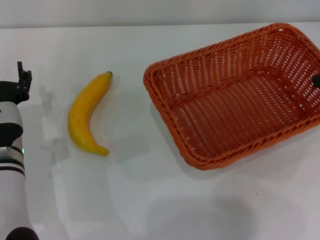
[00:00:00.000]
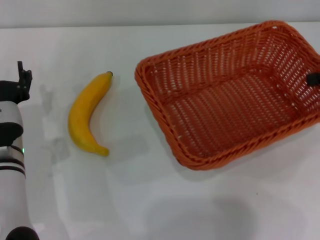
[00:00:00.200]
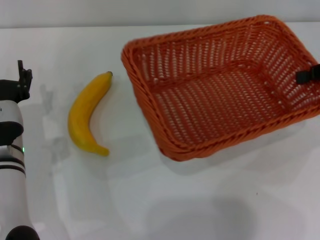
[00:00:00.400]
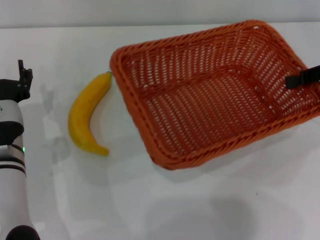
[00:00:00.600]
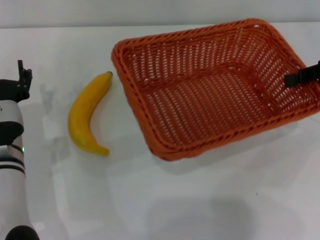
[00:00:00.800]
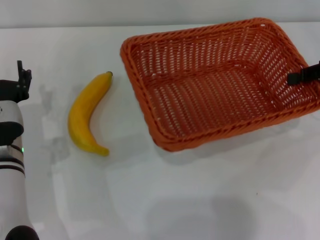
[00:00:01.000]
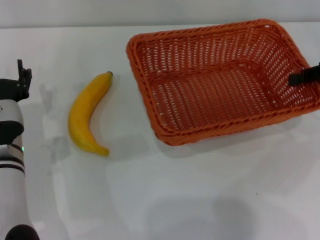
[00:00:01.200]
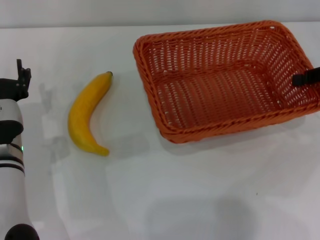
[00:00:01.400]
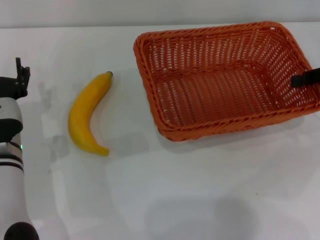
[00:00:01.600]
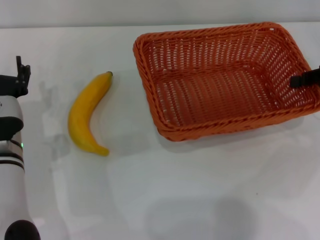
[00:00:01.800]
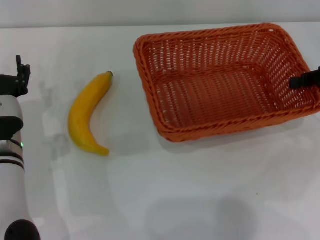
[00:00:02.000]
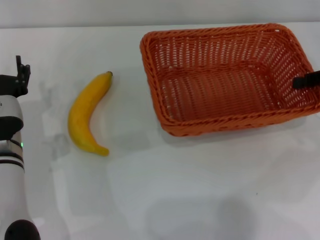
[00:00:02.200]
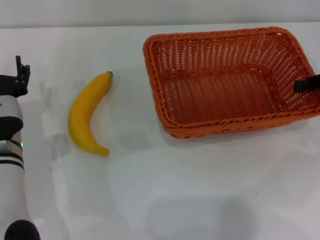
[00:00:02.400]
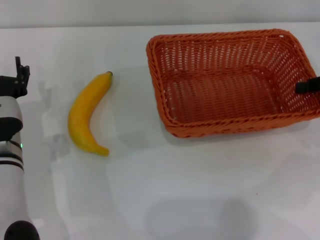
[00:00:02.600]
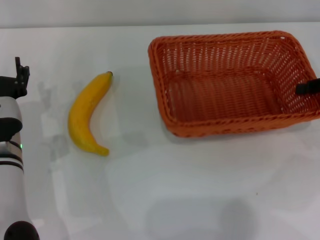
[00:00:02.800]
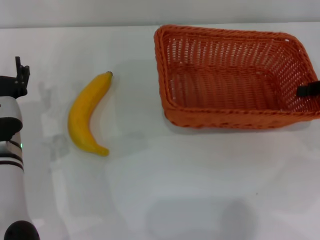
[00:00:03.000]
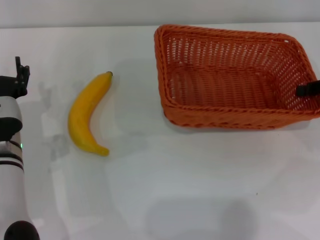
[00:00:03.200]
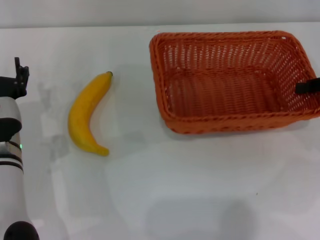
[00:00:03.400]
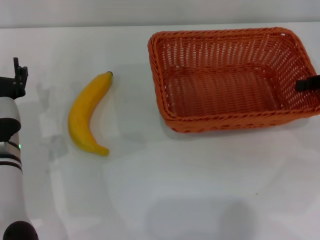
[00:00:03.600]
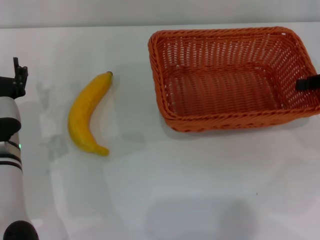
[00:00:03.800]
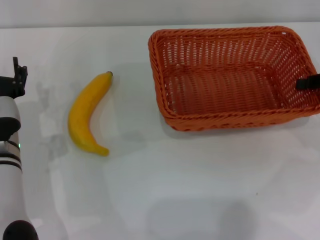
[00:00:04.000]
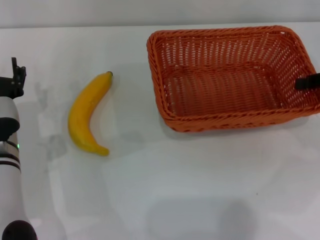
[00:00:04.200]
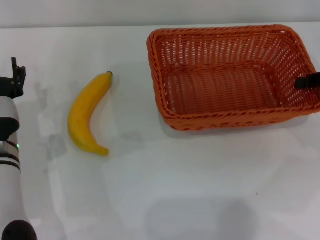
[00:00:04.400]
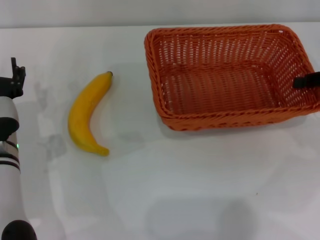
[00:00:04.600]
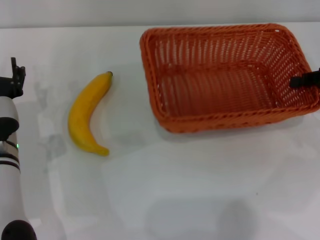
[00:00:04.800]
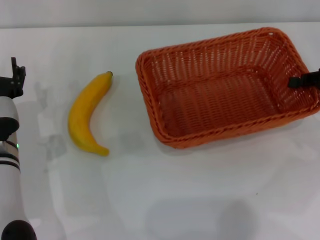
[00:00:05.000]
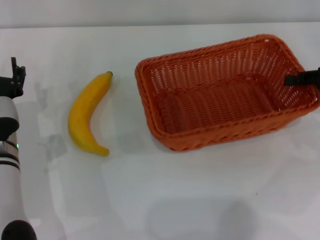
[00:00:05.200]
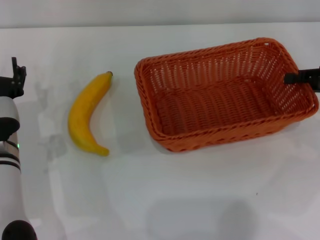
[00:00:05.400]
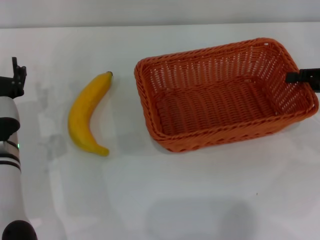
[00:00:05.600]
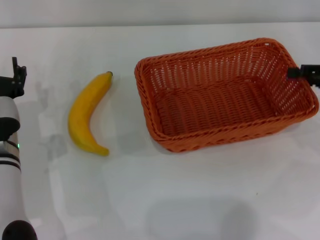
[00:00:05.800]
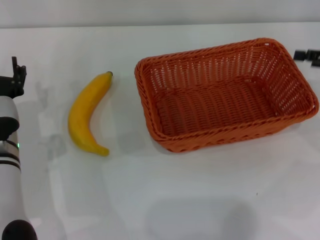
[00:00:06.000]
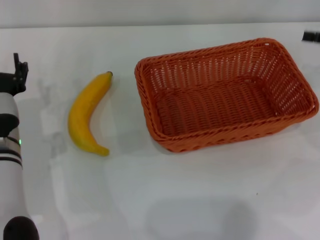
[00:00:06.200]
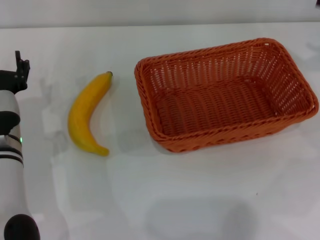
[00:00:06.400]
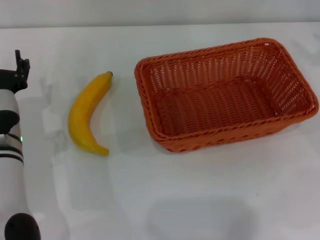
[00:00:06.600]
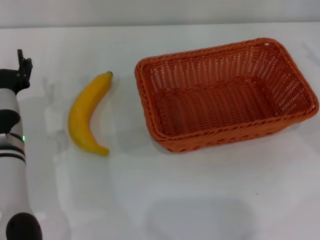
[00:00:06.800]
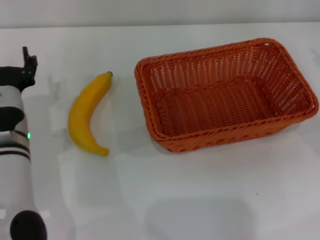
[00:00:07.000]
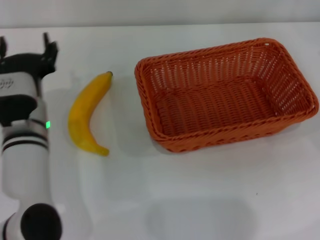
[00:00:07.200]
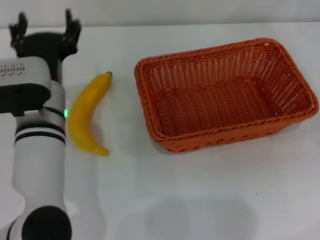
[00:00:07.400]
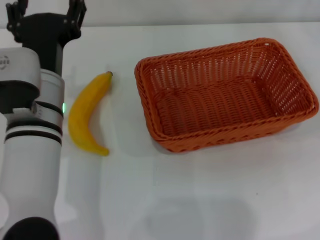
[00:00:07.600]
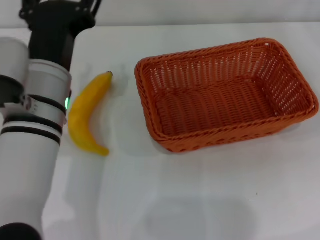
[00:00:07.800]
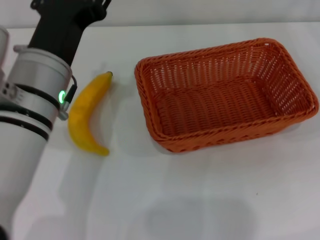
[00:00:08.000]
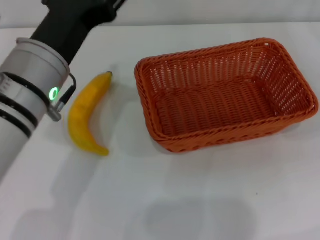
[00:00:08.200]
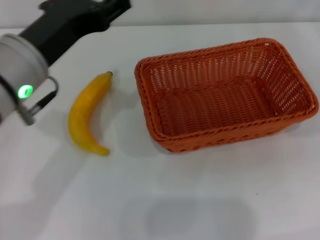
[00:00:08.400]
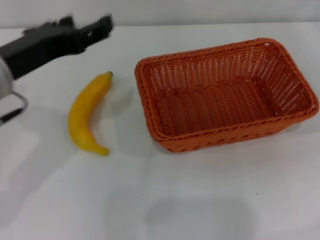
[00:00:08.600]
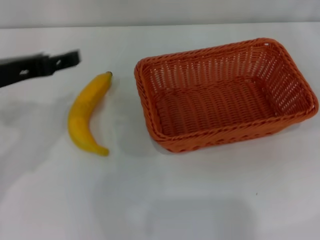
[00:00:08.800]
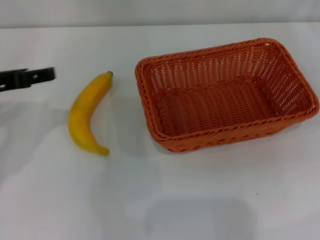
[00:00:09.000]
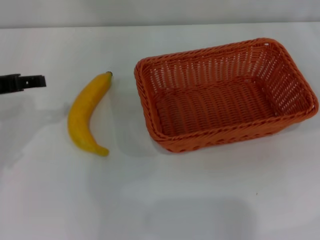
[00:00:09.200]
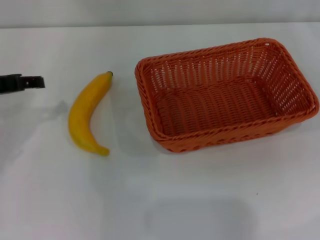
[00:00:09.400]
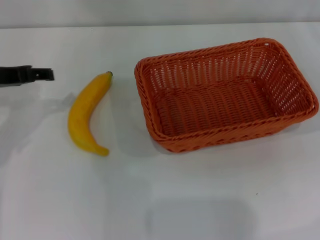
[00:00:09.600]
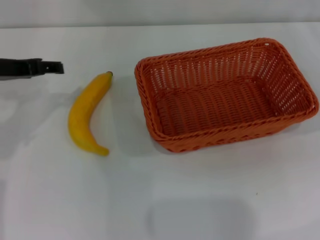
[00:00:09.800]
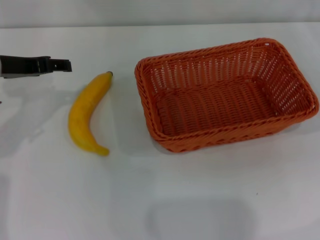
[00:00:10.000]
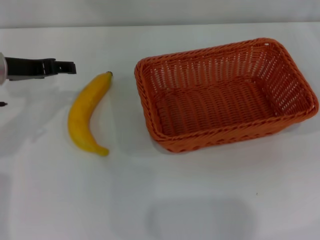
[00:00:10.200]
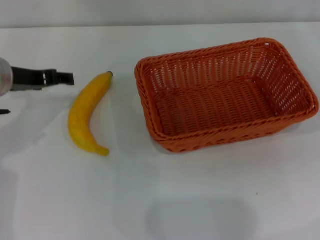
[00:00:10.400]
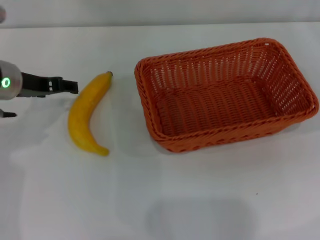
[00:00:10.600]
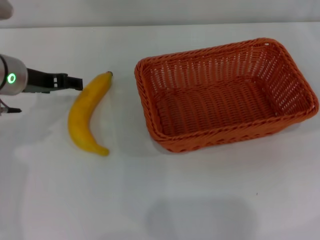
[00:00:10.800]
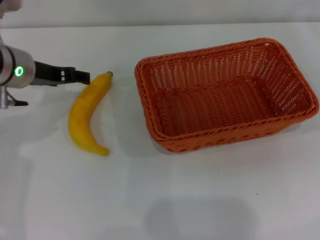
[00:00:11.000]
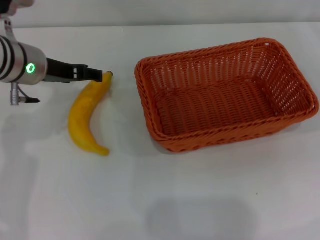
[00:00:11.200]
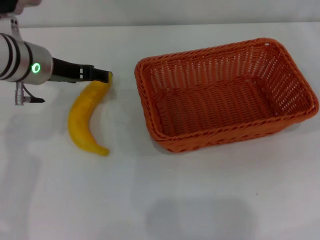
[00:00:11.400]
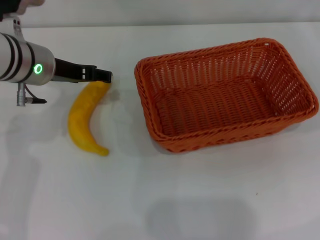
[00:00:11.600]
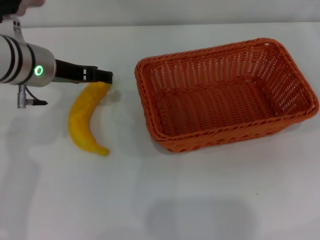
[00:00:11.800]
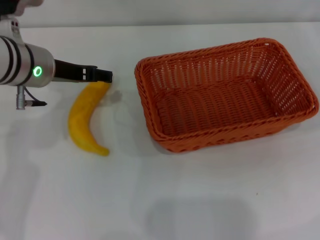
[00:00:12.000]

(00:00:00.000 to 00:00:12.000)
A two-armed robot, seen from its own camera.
Step, 00:00:00.000 - 00:00:05.600: Place the light basket in the center of view with the right gripper.
00:00:00.000 - 00:00:01.600: The grippers make only small movements.
00:00:01.600 - 00:00:03.000: The grippers make only small movements.
00:00:03.000 - 00:00:04.400: The two grippers keep their place.
00:00:04.400 - 00:00:06.000: The right gripper opens its fingers.
00:00:06.000 - 00:00:07.600: The left gripper heads upward and to the right, covering about 15 cm.
00:00:07.600 - 00:00:09.000: The left gripper goes about 15 cm to the left and upward.
00:00:09.000 - 00:00:10.400: The left gripper heads forward, covering approximately 10 cm.
00:00:10.400 - 00:00:12.000: The left gripper shifts approximately 5 cm to the right.

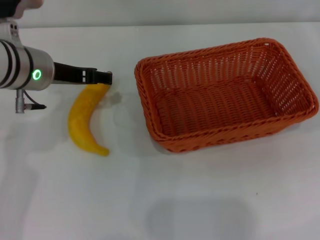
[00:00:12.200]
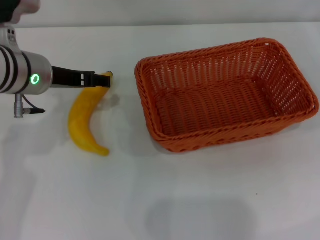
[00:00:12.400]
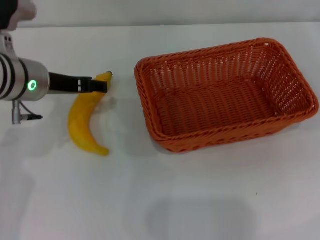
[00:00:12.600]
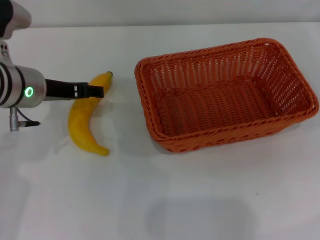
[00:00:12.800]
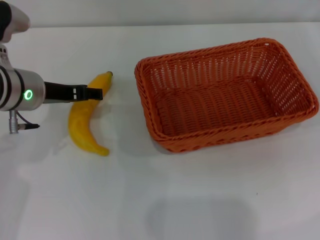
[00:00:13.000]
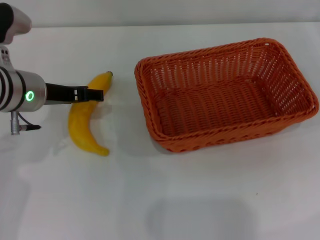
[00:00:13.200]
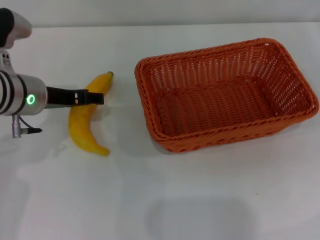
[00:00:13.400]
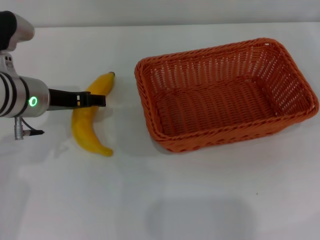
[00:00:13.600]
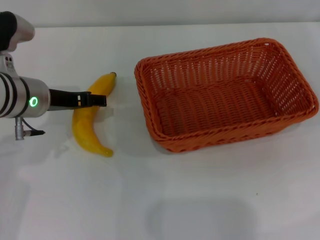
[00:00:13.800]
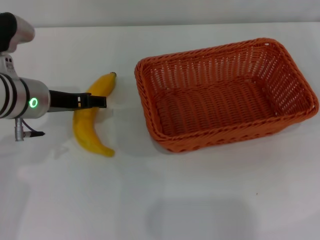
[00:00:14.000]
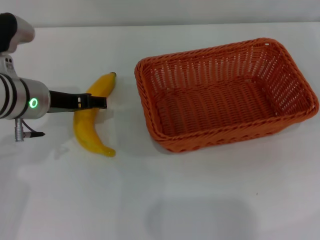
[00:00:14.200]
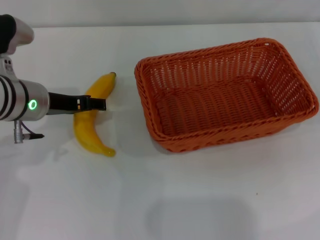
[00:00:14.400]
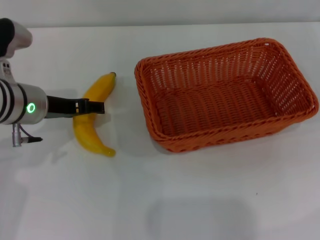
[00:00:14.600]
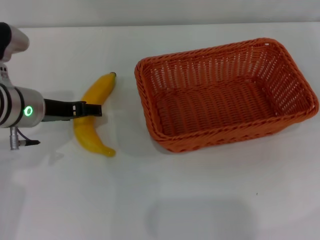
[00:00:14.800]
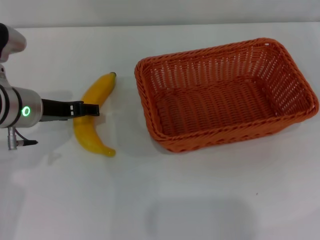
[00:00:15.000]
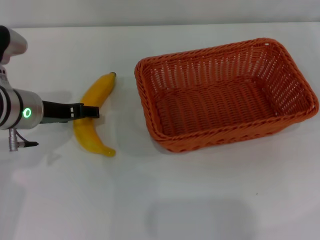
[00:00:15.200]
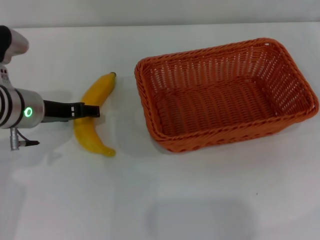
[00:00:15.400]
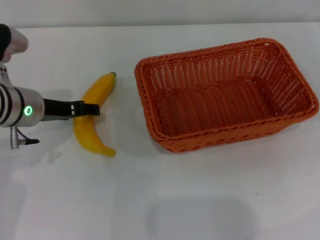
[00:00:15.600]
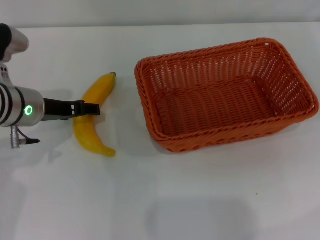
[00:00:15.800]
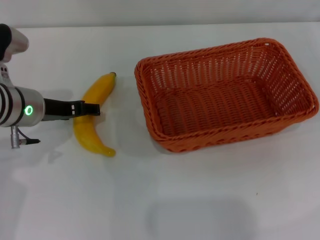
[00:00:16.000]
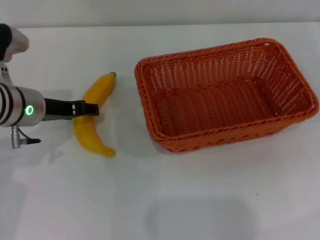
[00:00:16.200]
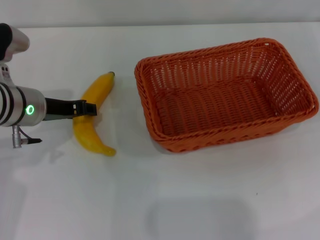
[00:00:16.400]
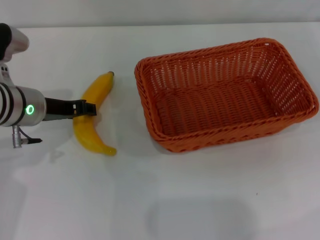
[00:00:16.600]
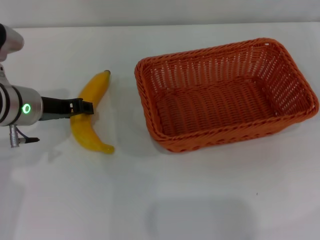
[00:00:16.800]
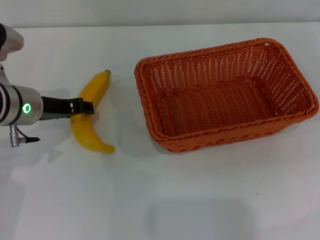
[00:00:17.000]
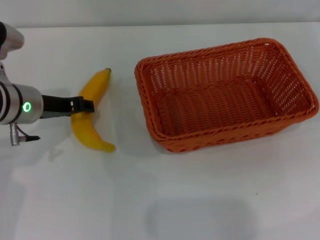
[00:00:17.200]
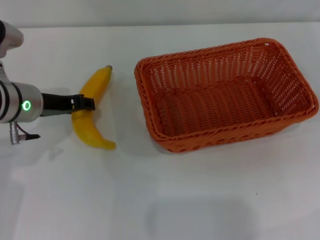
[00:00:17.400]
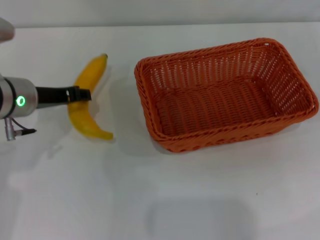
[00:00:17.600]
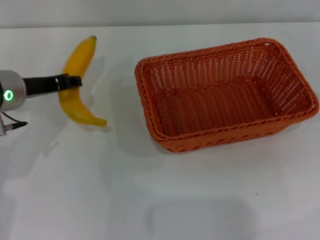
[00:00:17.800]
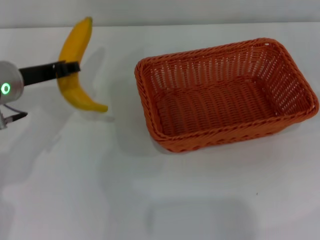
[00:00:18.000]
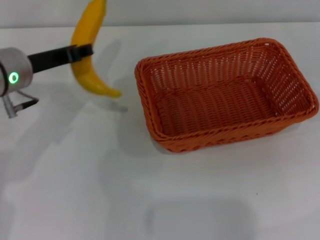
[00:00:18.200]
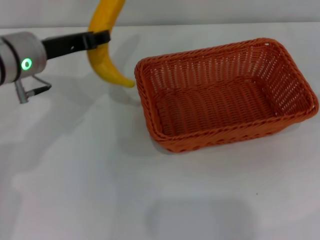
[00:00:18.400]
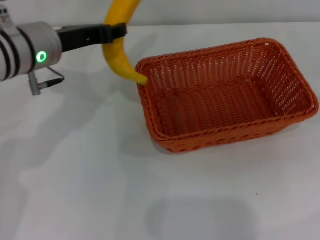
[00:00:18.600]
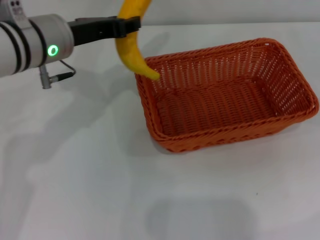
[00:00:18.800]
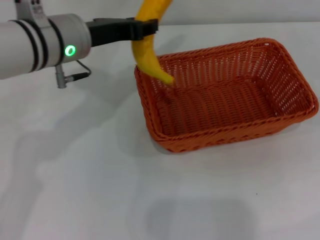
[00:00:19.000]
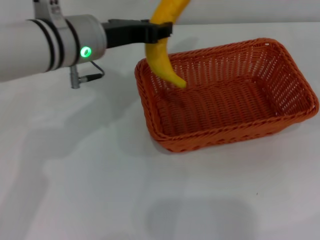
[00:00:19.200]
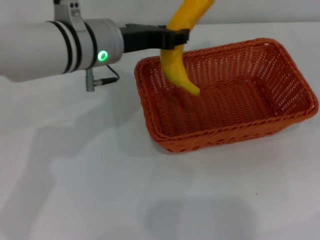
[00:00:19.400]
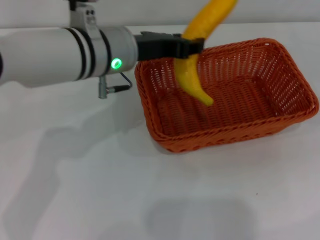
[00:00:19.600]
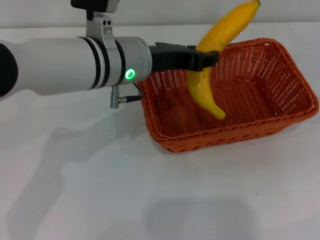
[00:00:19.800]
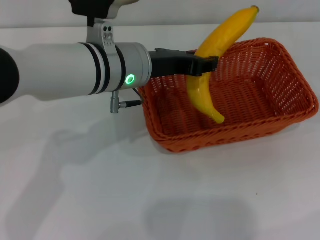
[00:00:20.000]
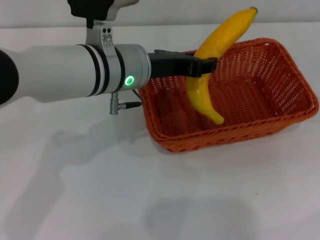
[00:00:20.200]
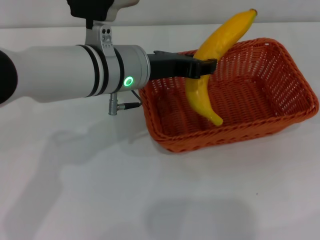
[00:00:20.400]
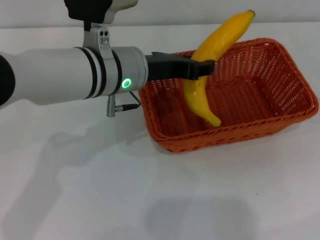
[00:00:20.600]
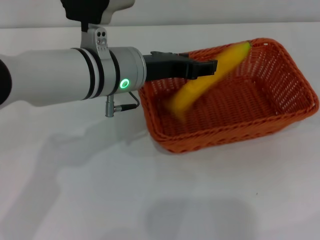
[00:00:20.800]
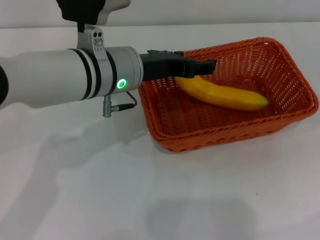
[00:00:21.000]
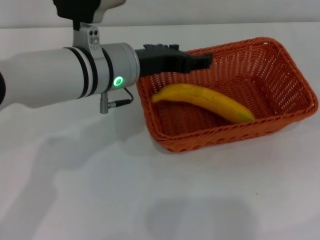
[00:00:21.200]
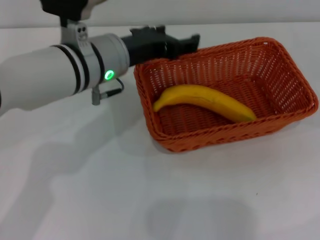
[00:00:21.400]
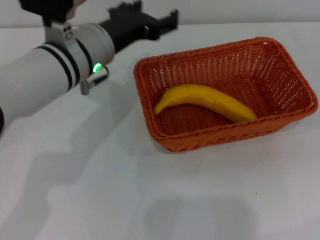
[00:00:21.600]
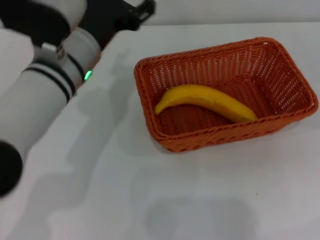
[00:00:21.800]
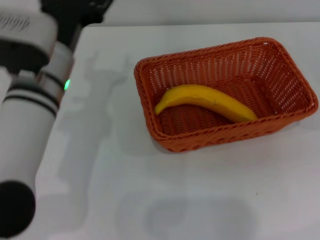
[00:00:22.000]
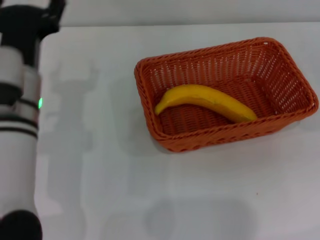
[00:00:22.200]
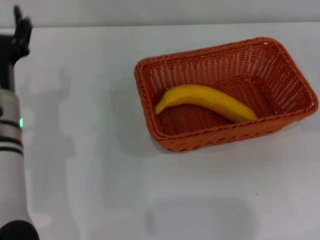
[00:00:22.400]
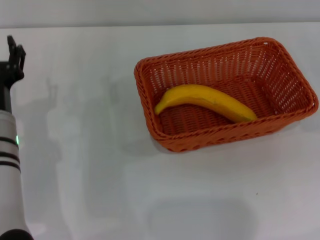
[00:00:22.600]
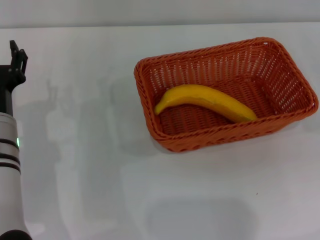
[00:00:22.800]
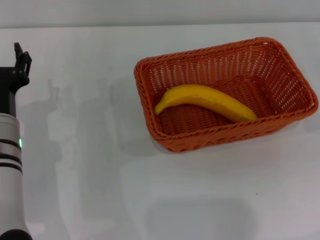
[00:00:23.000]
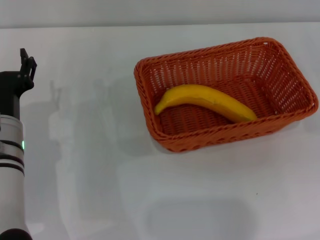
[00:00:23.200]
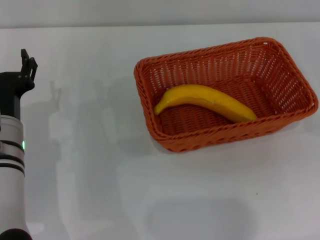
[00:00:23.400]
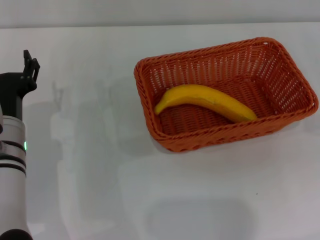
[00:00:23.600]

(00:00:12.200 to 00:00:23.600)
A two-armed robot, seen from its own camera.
Step, 00:00:12.200 - 00:00:17.600: Pick up the banana with the left gripper.
Step, 00:00:17.800 - 00:00:20.800: Place the banana into the light basket with the left gripper.
00:00:12.200 - 00:00:15.000: There are only small adjustments of the grippers.
00:00:15.000 - 00:00:16.400: The left gripper closes up.
00:00:16.400 - 00:00:17.800: The left gripper closes up.
00:00:17.800 - 00:00:19.400: The left gripper travels to the right by about 10 cm.
00:00:19.400 - 00:00:20.800: The grippers move only a little.
00:00:20.800 - 00:00:22.200: The left gripper goes some 10 cm to the left, and opens.
00:00:22.200 - 00:00:23.600: The left gripper is displaced downward by some 5 cm.
